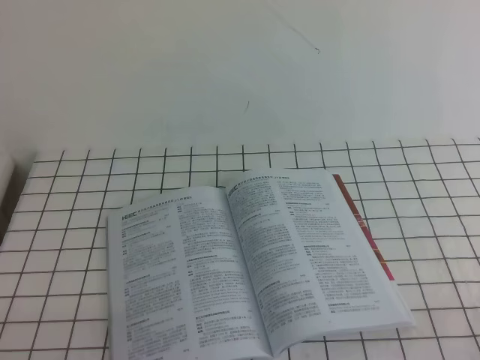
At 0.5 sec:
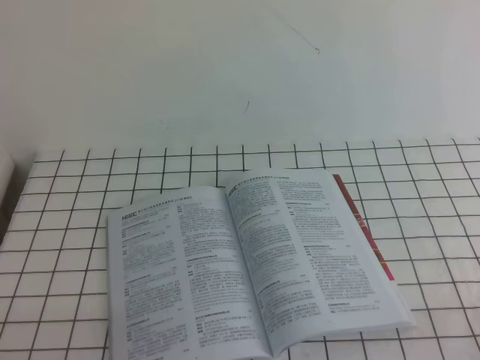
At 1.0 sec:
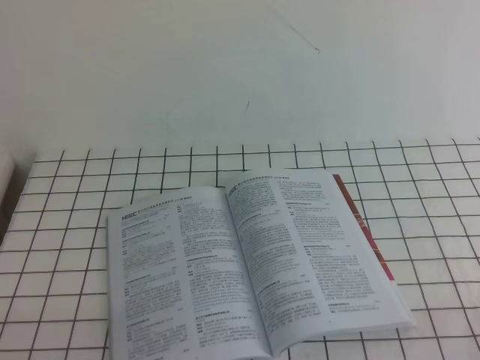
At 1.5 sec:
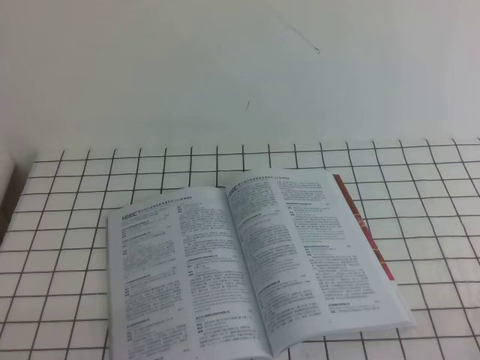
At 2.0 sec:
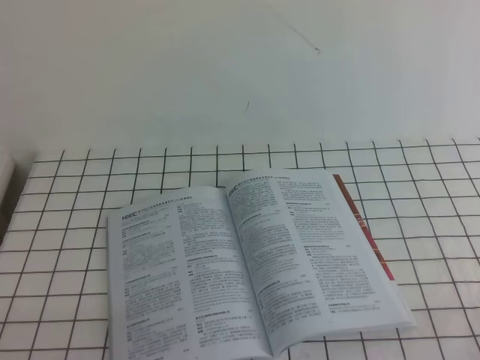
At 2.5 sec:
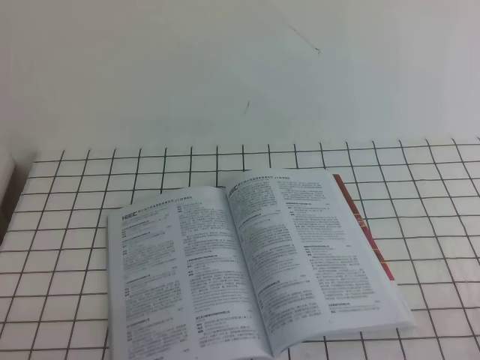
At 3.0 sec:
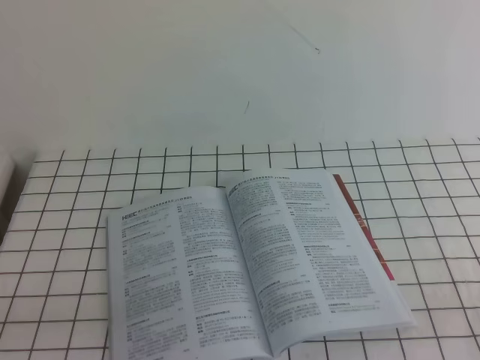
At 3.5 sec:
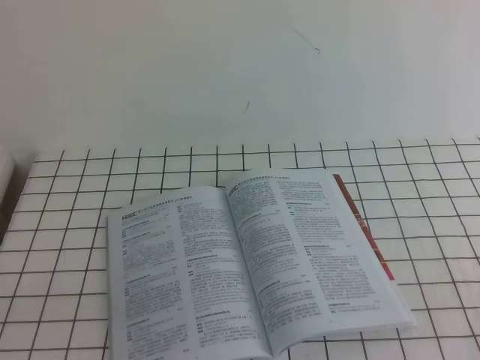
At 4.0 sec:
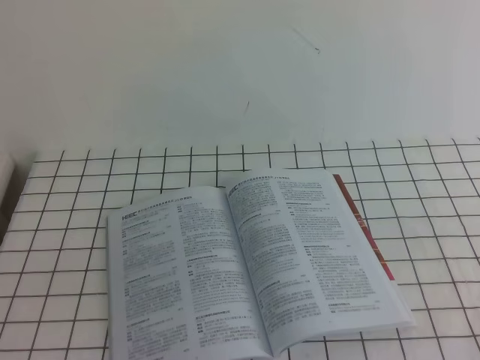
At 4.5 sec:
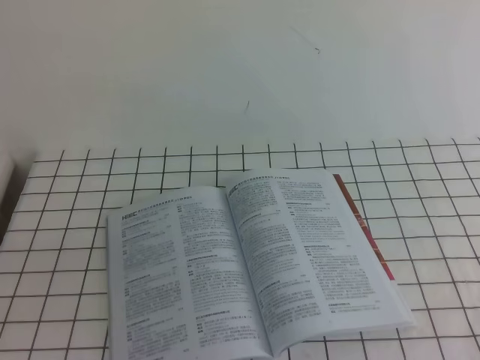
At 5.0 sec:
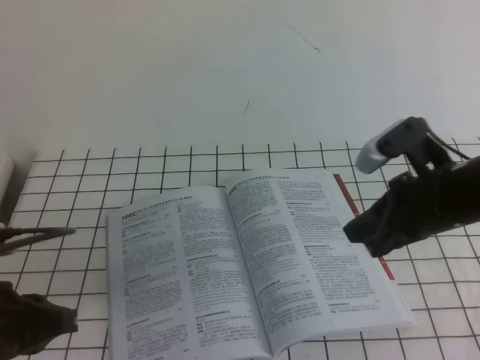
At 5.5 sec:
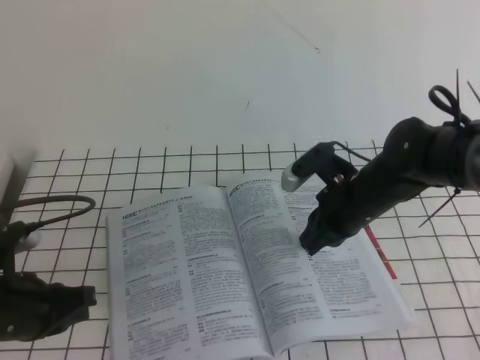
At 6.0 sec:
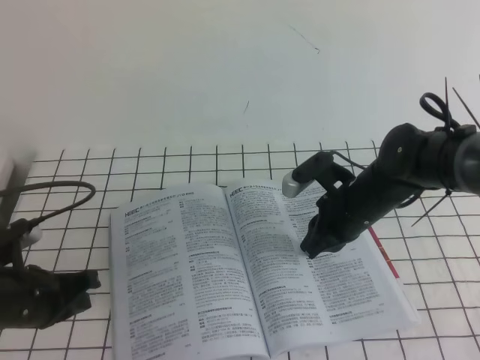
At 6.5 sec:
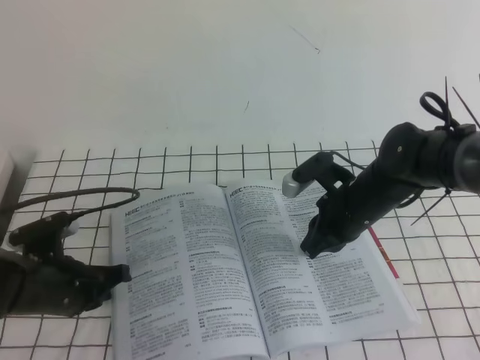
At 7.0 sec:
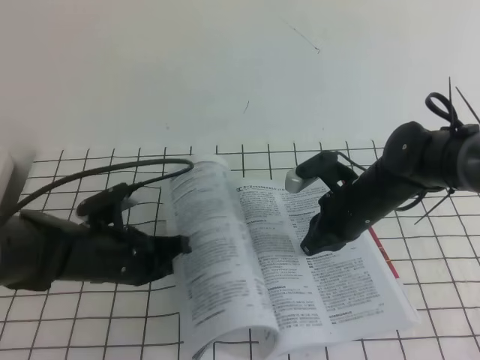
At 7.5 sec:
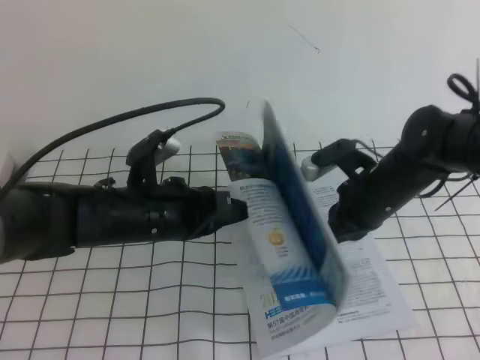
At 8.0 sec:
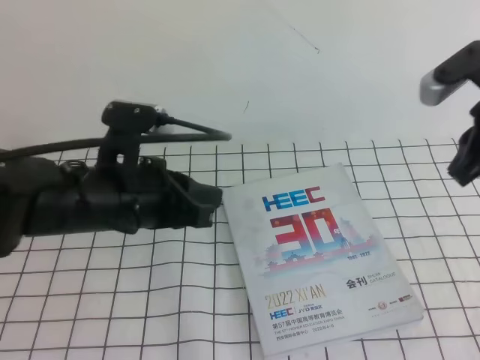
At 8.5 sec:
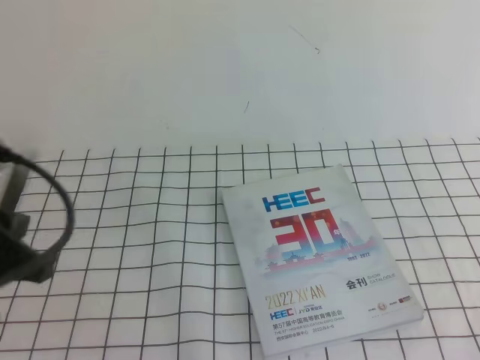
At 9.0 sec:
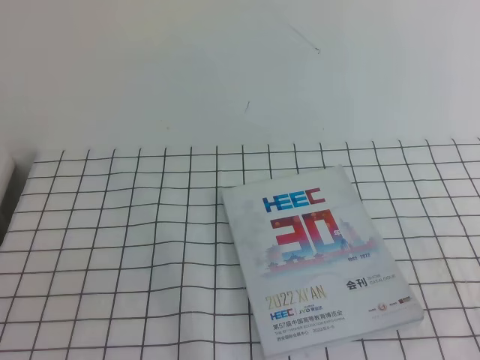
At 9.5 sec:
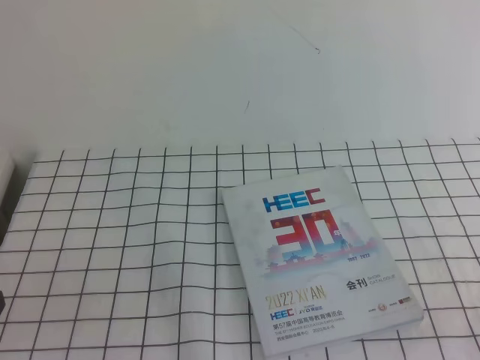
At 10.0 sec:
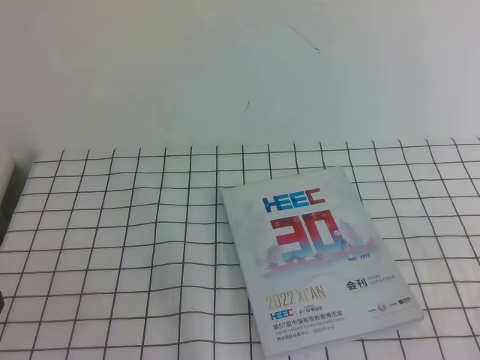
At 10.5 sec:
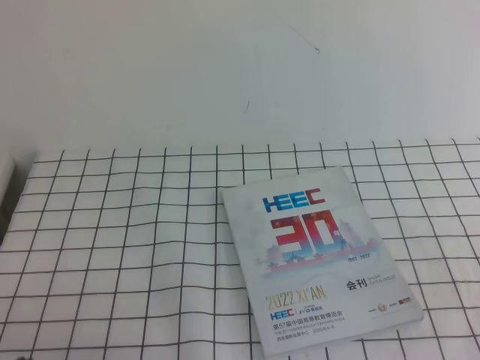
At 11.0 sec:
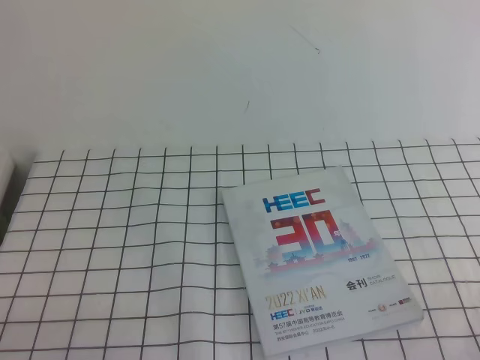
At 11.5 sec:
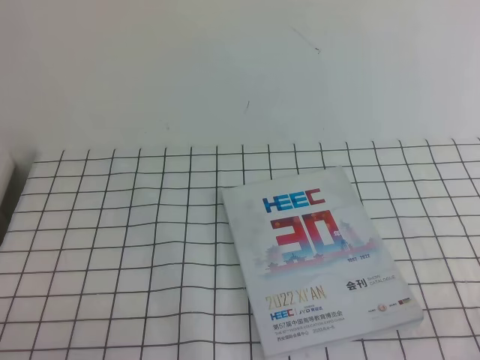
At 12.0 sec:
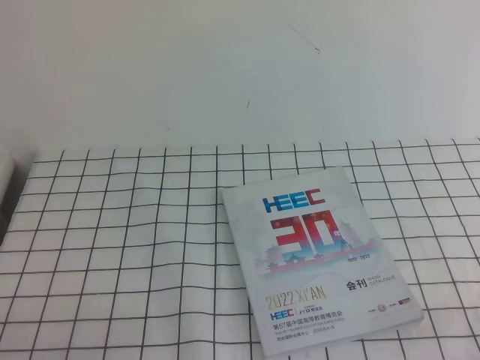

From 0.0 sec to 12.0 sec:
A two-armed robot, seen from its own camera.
Task of the whole recording: on the white tablecloth, hold the book with one hand and close it with the other.
From 0.0 sec to 2.0 sec: Both grippers stay about where they are.
From 4.0 sec to 6.0 sec: The left gripper goes about 25 cm forward and downward, while the right gripper goes roughly 40 cm forward, to the left and downward.
From 6.0 sec to 8.0 sec: The right gripper is displaced upward and to the right by about 20 cm, while the left gripper is displaced to the right and upward by some 20 cm.
From 8.0 sec to 10.0 sec: The right gripper heads backward, covering approximately 25 cm. Meanwhile the left gripper heads backward and to the left, covering approximately 25 cm.

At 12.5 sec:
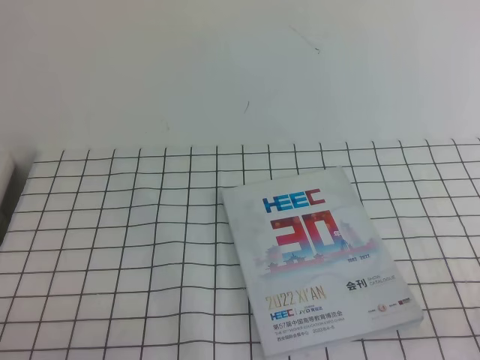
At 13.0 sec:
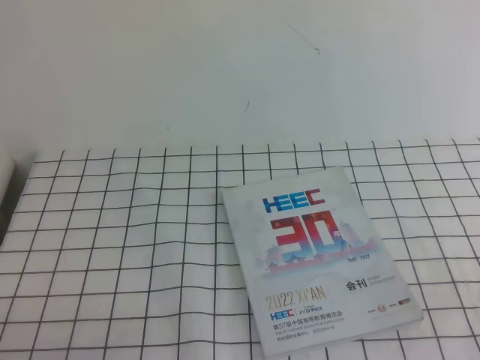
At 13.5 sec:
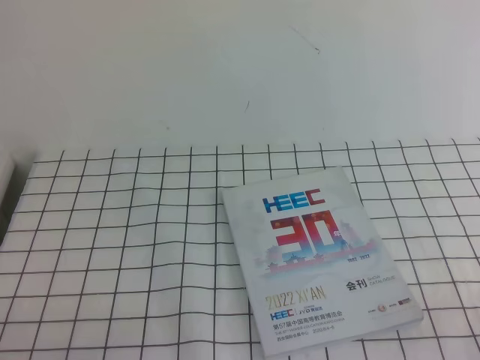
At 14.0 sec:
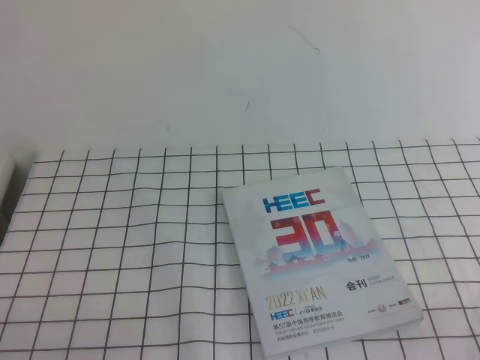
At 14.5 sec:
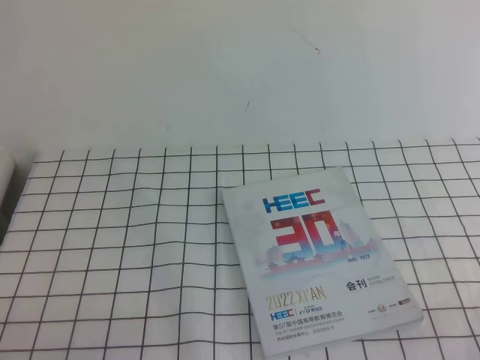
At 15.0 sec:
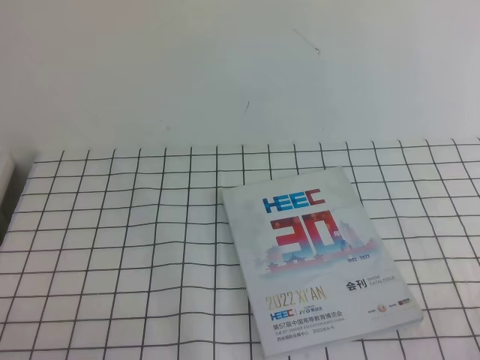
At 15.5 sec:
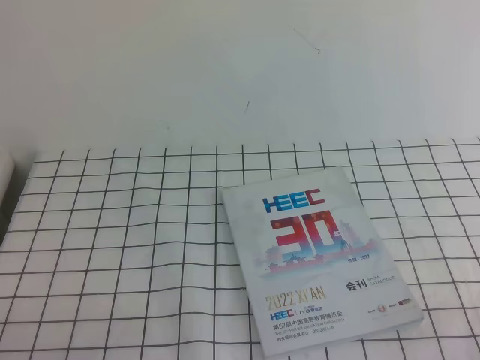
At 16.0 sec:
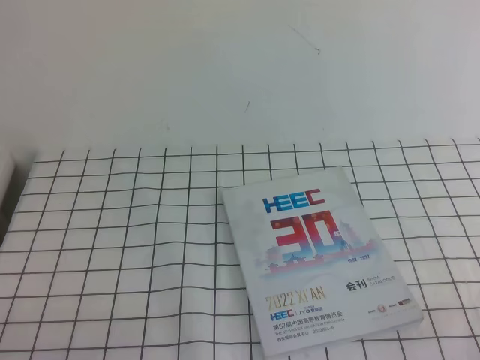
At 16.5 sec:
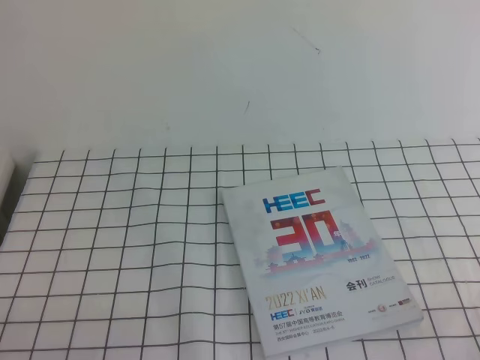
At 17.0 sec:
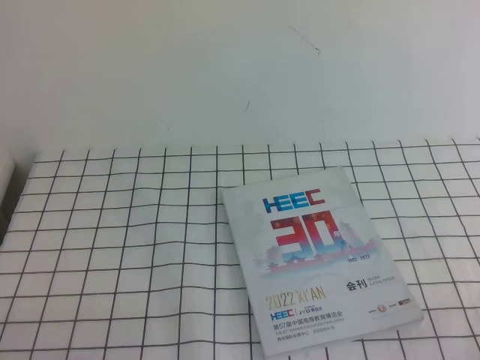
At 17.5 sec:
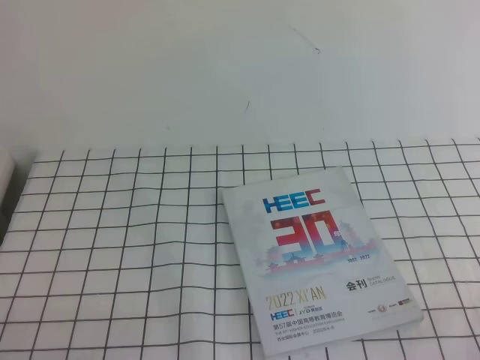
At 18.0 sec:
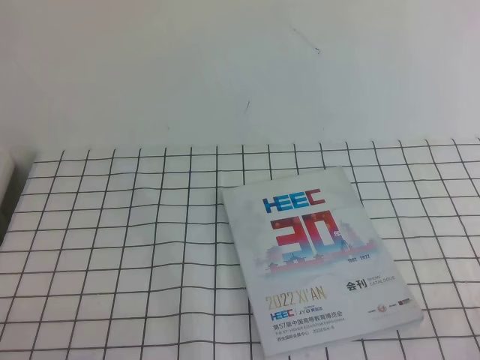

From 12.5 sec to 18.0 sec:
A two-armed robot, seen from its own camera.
Task of the whole recording: on the white tablecloth, hold the book with one hand and close it with the other.
From 14.5 sec to 16.0 sec: Both grippers stay put.
